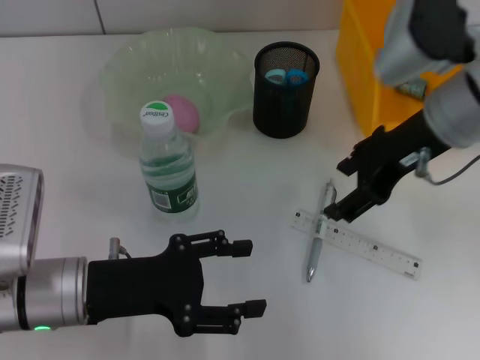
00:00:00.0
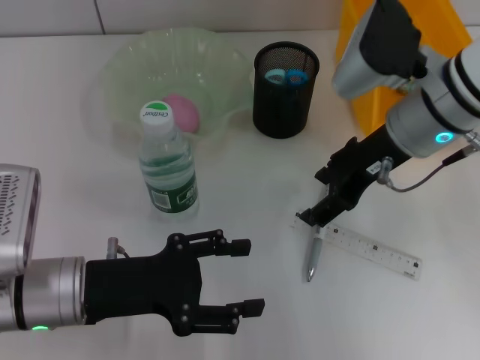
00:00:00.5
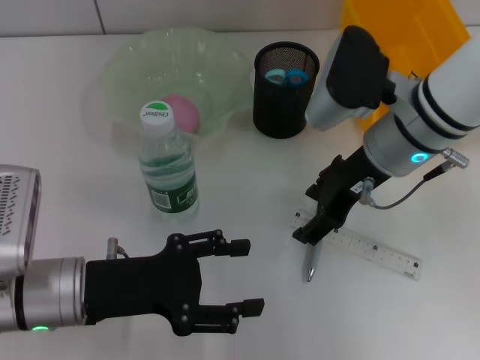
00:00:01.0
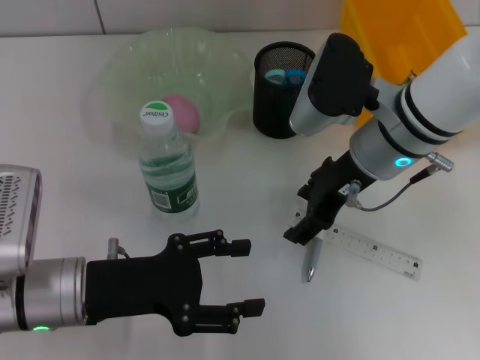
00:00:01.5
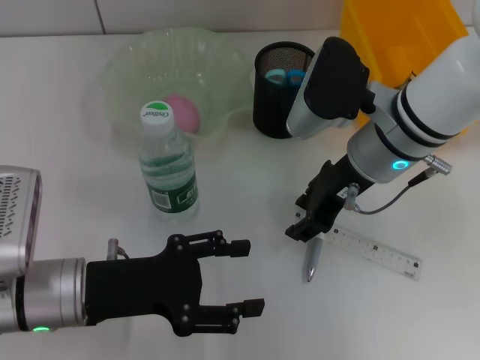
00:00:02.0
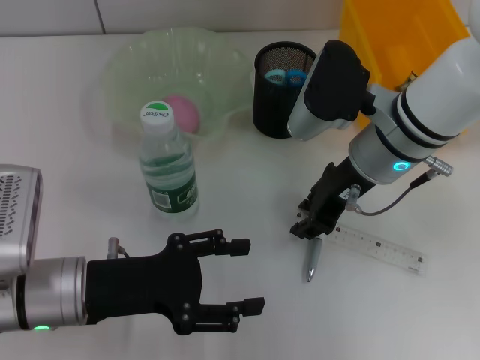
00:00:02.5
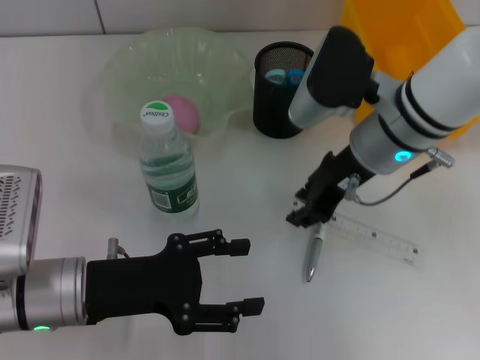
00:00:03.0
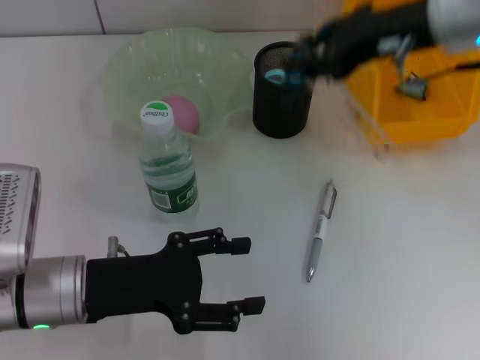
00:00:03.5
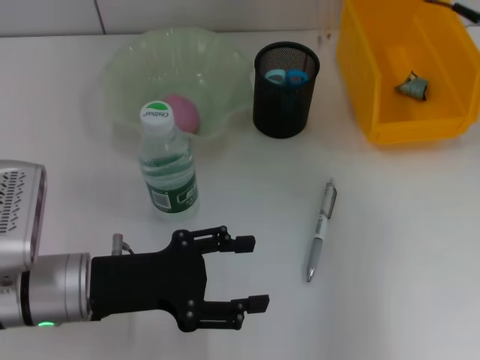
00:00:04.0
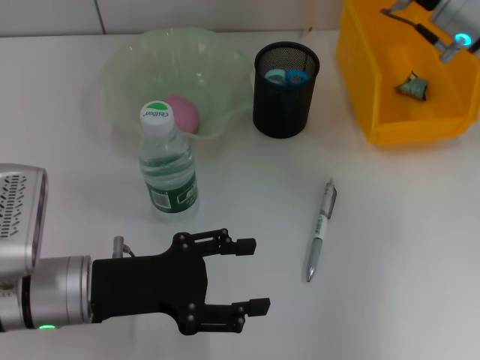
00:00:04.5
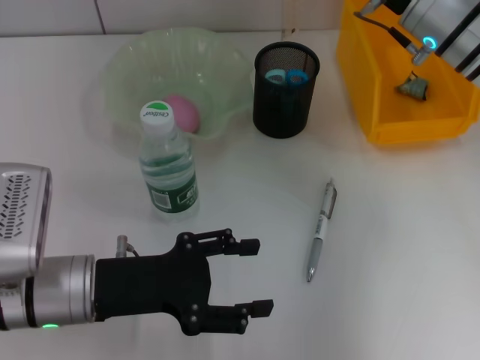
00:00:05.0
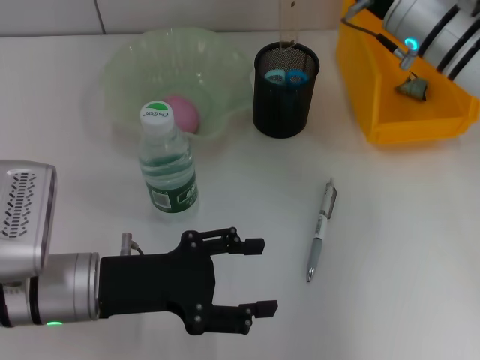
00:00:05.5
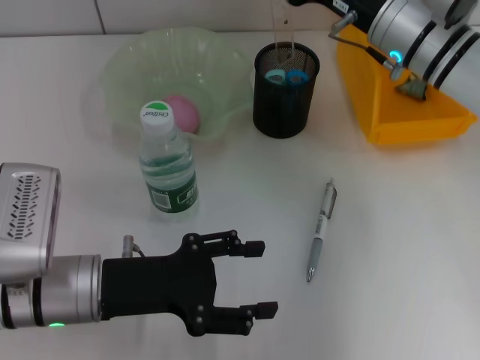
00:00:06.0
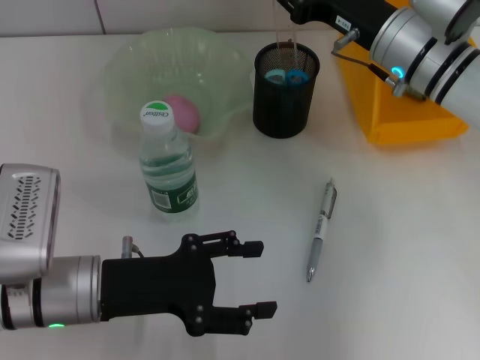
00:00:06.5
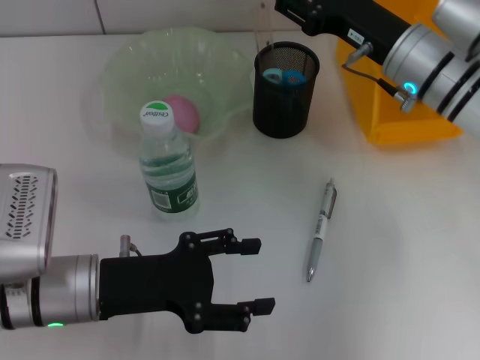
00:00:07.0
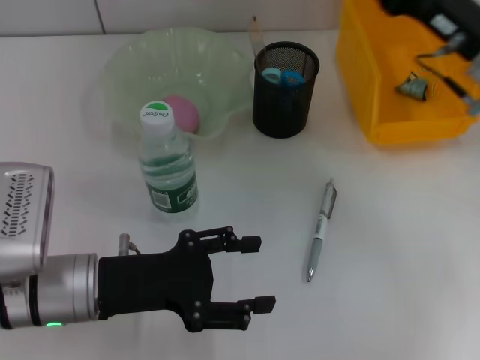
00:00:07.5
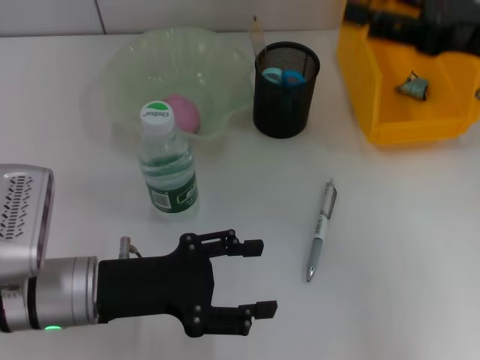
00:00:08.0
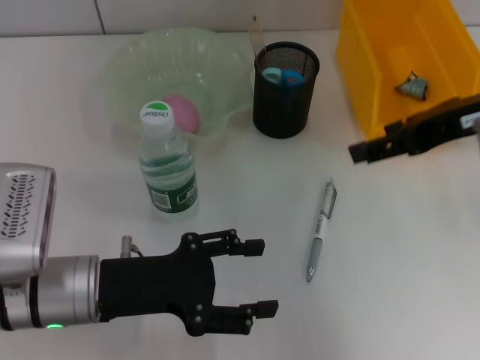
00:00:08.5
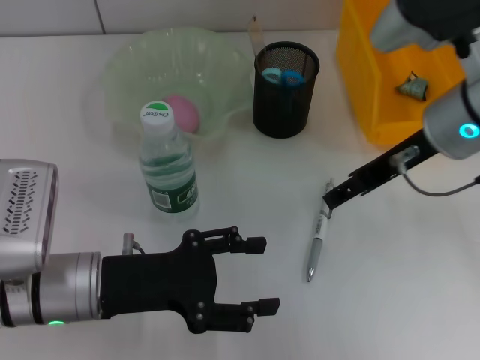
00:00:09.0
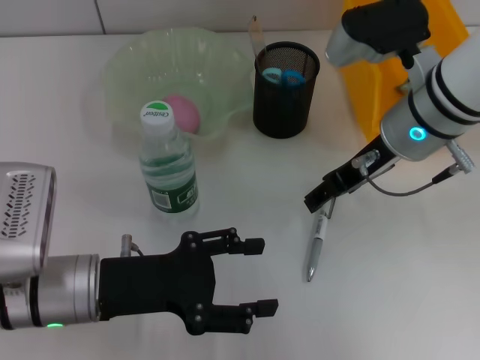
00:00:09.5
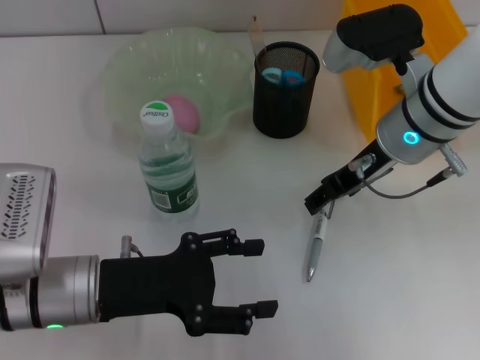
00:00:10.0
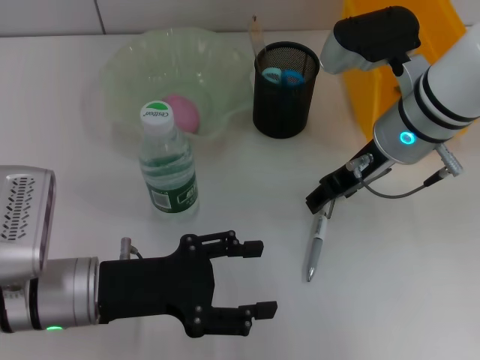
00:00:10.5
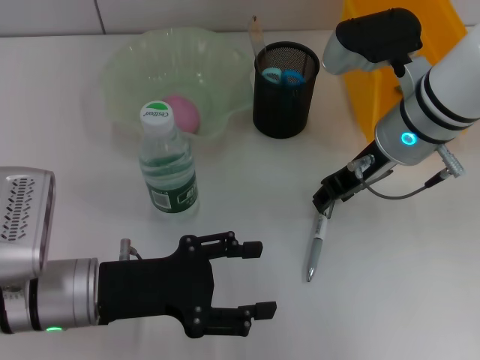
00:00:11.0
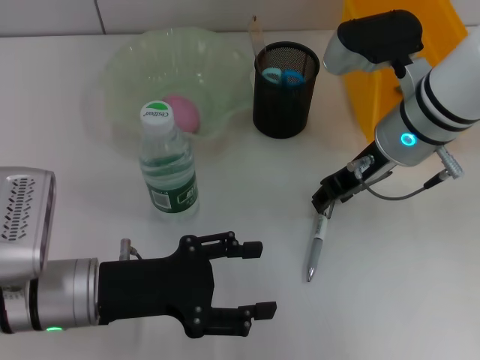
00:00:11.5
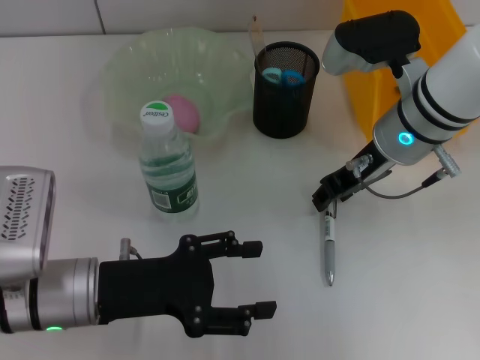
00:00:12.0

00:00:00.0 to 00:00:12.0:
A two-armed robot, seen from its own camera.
Step, 00:00:00.0 to 00:00:02.5: Grab the ruler with the right hand.
Step, 00:00:03.0 to 00:00:07.0: Place the ruler into the pen holder with the right hand.
00:00:00.0 to 00:00:02.0: The right gripper shifts approximately 5 cm downward.
00:00:02.0 to 00:00:04.0: The right gripper travels to the right and upward by roughly 15 cm, and closes its fingers.
00:00:04.0 to 00:00:06.0: The right gripper travels downward and to the left by about 10 cm.
00:00:06.0 to 00:00:08.0: The right gripper heads backward, to the right and upward, covering some 15 cm, and opens.
00:00:08.0 to 00:00:10.0: The right gripper moves to the left and downward, about 15 cm.
00:00:10.0 to 00:00:12.0: The right gripper closes its fingers.

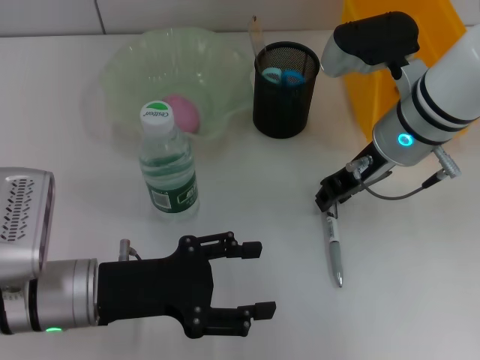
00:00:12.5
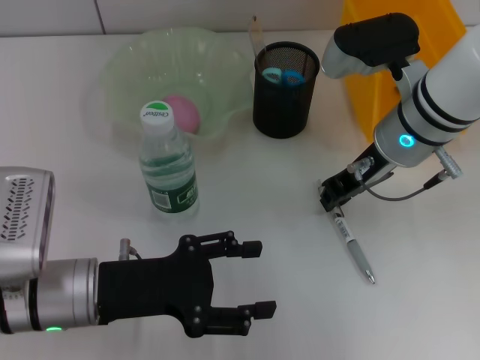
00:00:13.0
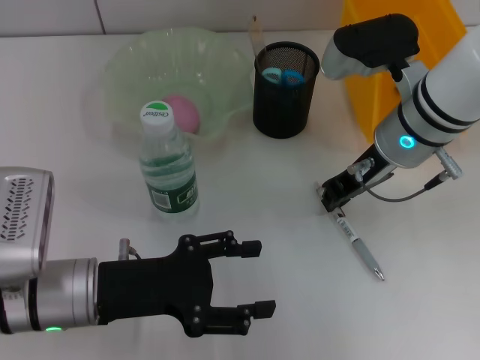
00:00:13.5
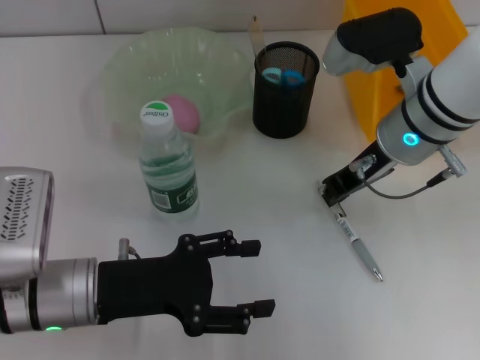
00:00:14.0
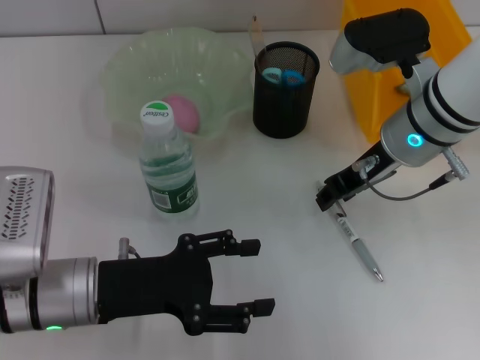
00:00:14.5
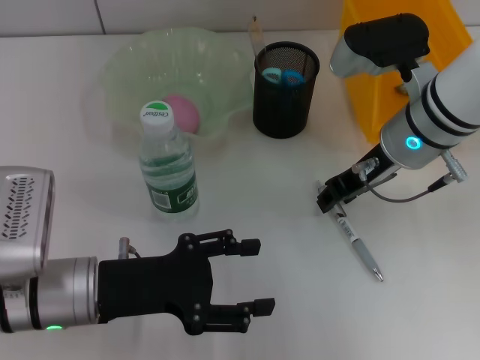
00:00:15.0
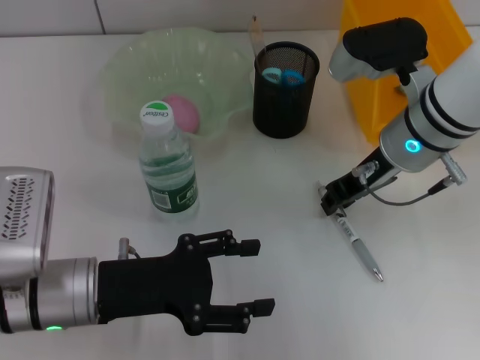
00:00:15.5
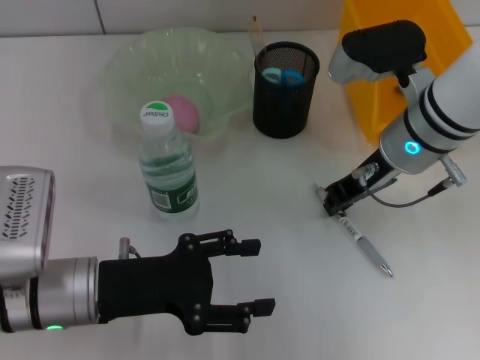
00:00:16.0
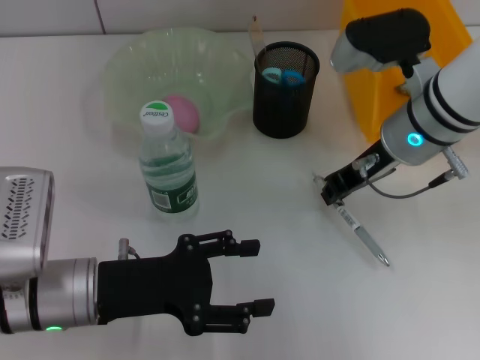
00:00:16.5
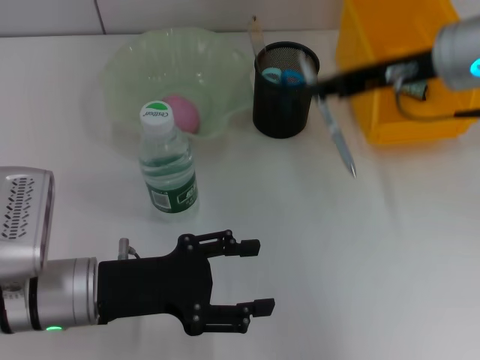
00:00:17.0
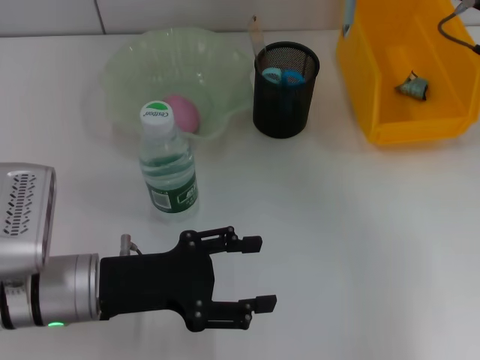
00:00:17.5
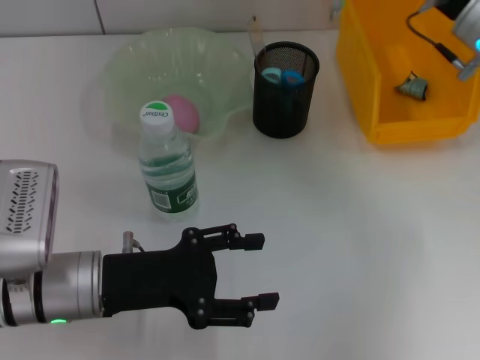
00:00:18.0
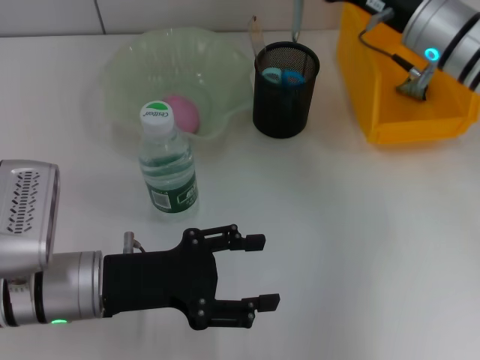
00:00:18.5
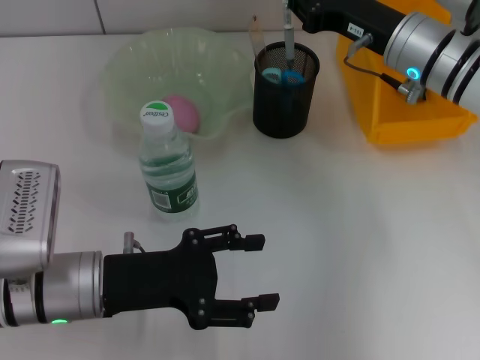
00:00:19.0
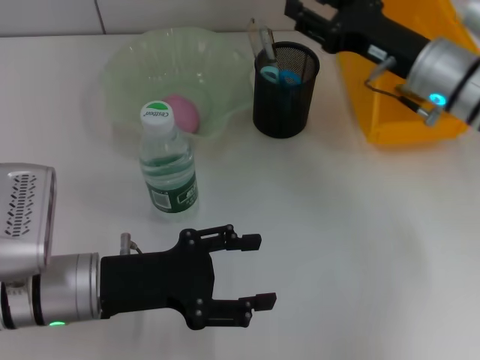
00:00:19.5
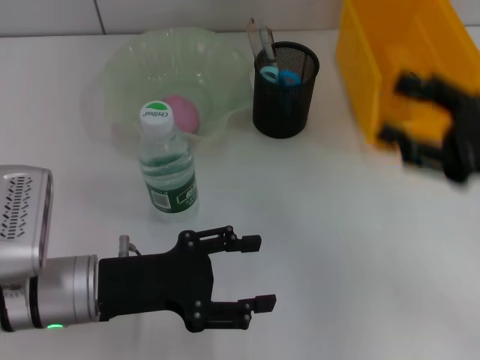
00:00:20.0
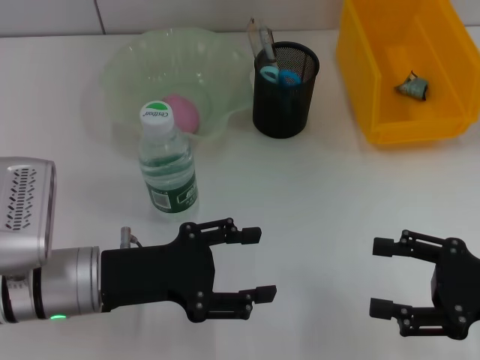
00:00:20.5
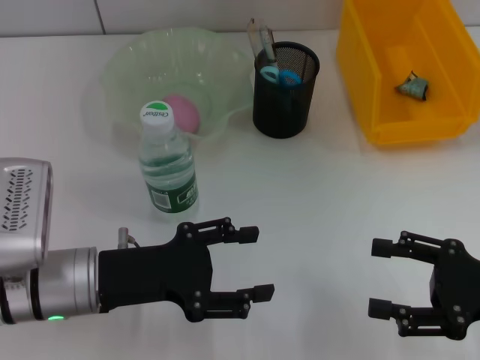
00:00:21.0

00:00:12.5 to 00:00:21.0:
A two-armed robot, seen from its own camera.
Step, 00:00:12.5 to 00:00:16.0: Grab the gray spring-action pen with the right hand.
Step, 00:00:16.5 to 00:00:19.0: Place the gray spring-action pen into the pen holder with the right hand.
00:00:12.5 to 00:00:16.5: Both grippers stay put.
00:00:16.5 to 00:00:19.0: The right gripper goes to the right and returns, about 10 cm each way.
00:00:19.0 to 00:00:21.0: The right gripper is displaced backward and to the right by about 25 cm, and opens.

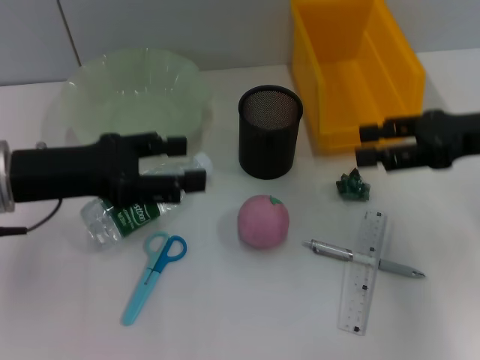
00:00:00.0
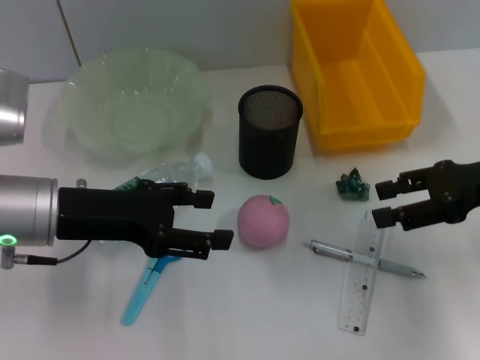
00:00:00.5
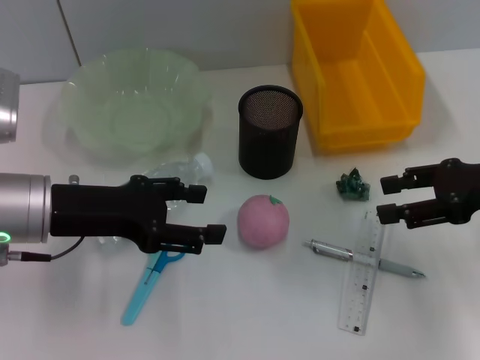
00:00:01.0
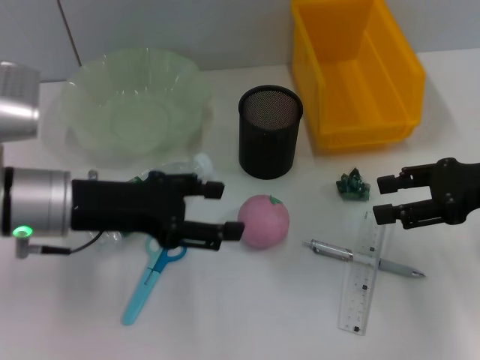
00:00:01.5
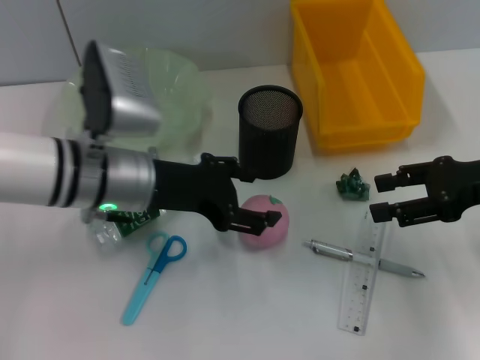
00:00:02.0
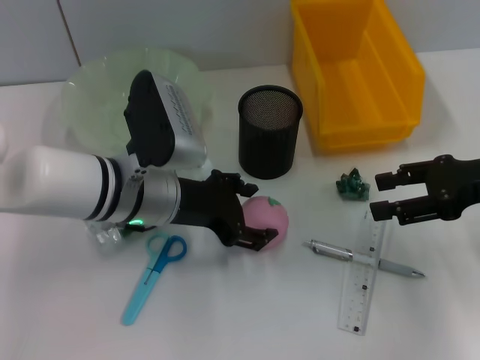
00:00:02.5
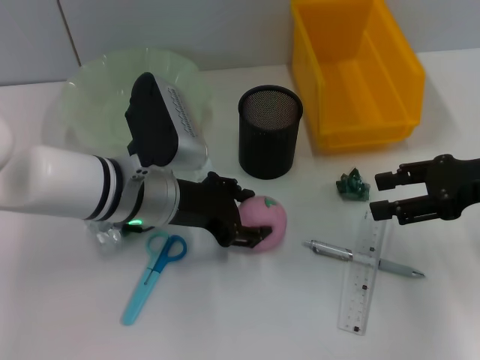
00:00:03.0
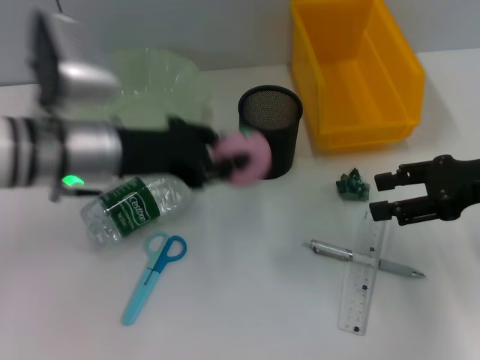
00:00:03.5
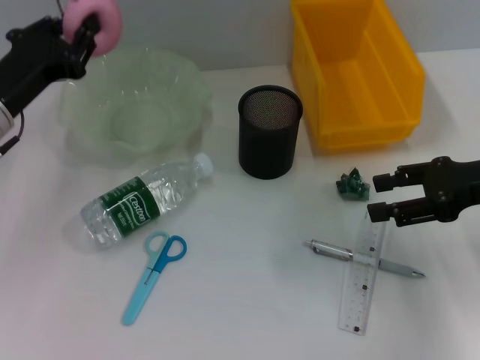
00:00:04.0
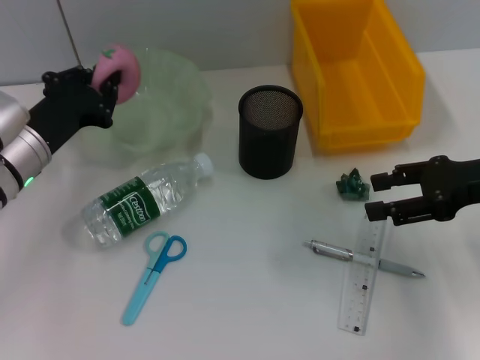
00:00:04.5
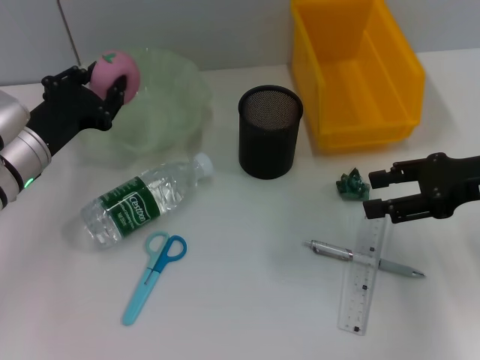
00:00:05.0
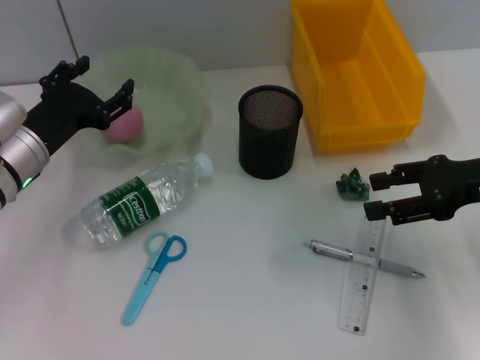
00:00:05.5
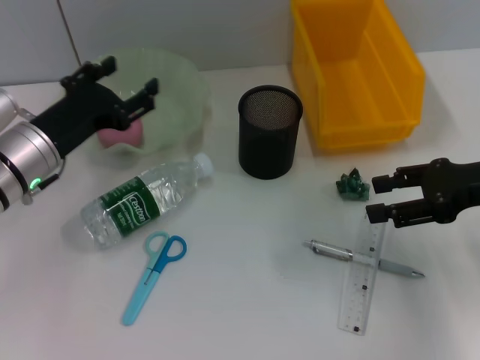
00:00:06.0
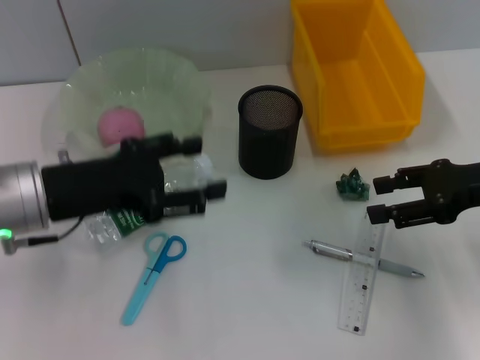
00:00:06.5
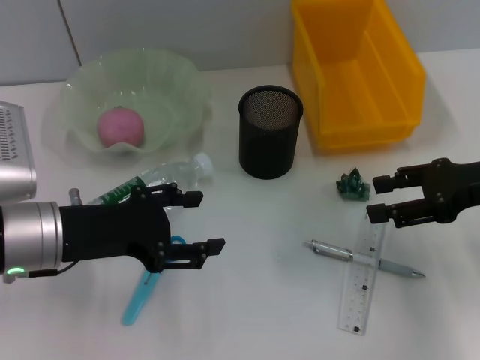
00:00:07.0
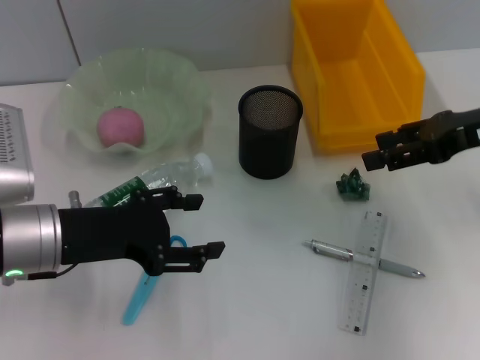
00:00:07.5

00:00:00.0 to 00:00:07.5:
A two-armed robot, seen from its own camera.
Step, 00:00:00.0 to 00:00:03.0: Grab the peach with the left hand.
Step, 00:00:03.5 to 00:00:05.5: Place the peach into the fruit bowl with the left hand.
00:00:00.0 to 00:00:02.0: The left gripper moves to the right, some 10 cm.
00:00:02.0 to 00:00:04.0: The left gripper heads to the left, covering about 10 cm, and closes up.
00:00:04.0 to 00:00:05.5: The left gripper opens its fingers.
00:00:05.5 to 00:00:07.5: The right gripper is displaced upward by about 5 cm. Meanwhile the left gripper travels backward by about 10 cm.
